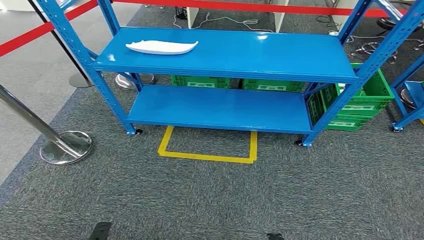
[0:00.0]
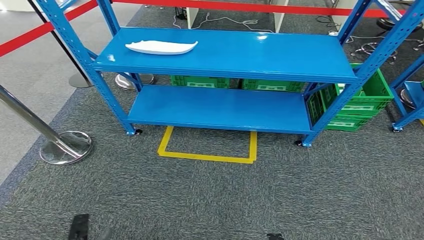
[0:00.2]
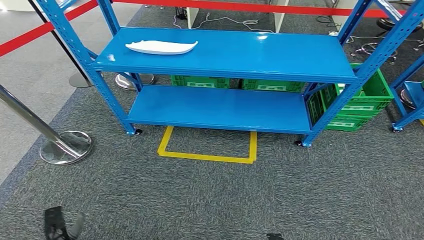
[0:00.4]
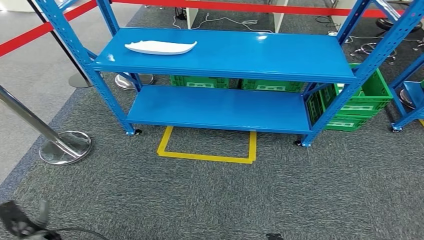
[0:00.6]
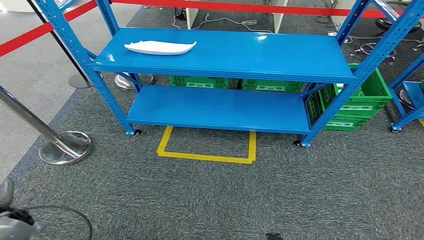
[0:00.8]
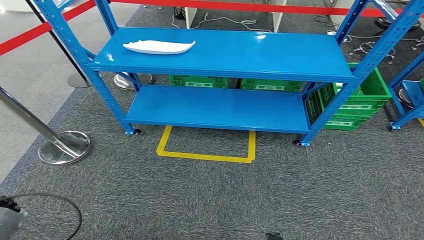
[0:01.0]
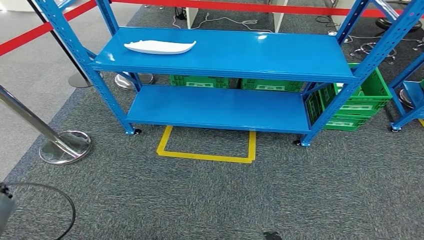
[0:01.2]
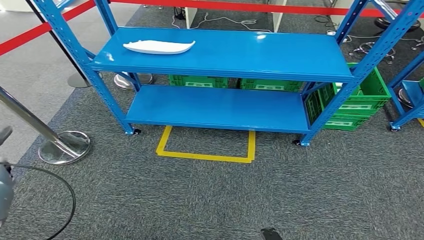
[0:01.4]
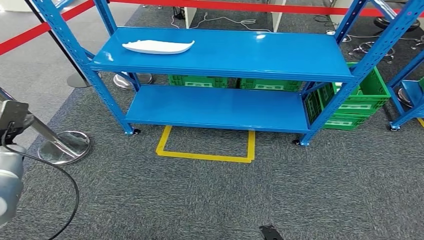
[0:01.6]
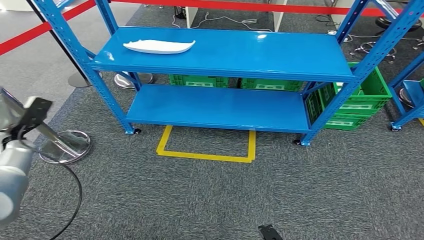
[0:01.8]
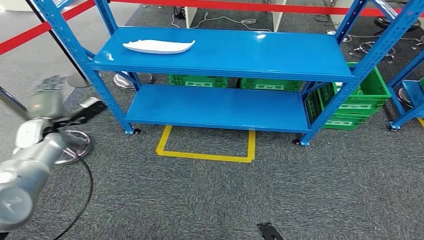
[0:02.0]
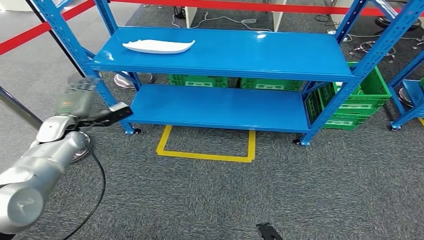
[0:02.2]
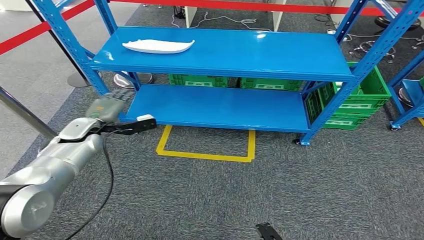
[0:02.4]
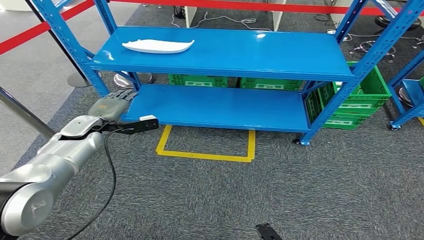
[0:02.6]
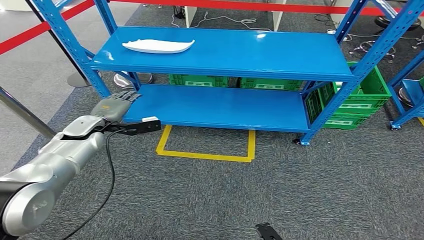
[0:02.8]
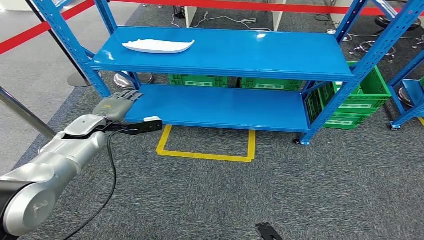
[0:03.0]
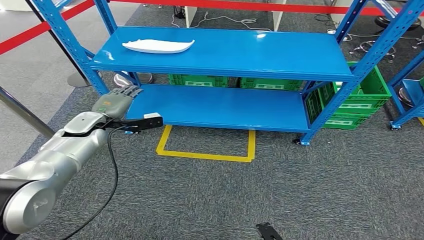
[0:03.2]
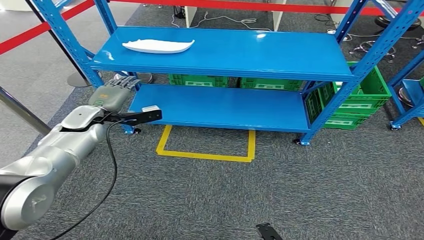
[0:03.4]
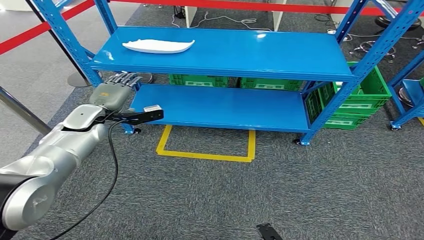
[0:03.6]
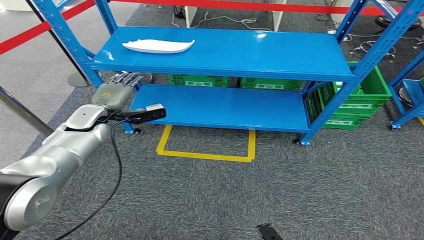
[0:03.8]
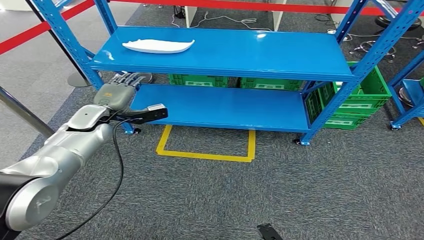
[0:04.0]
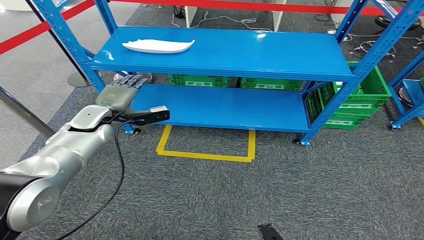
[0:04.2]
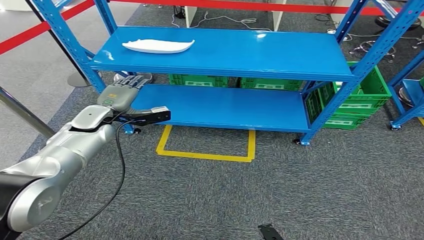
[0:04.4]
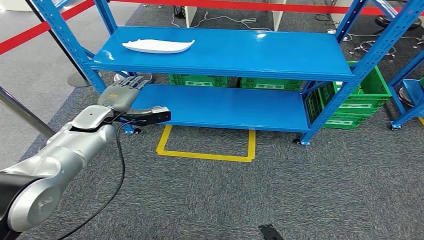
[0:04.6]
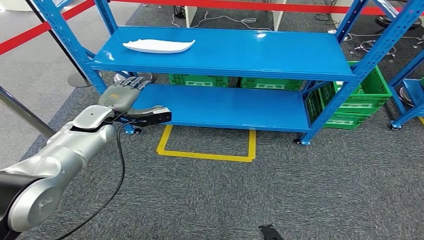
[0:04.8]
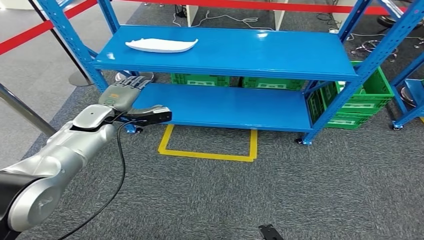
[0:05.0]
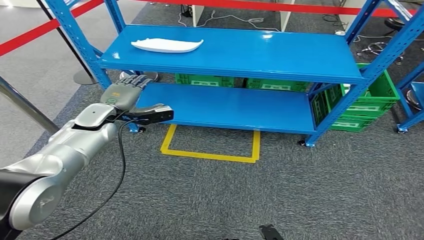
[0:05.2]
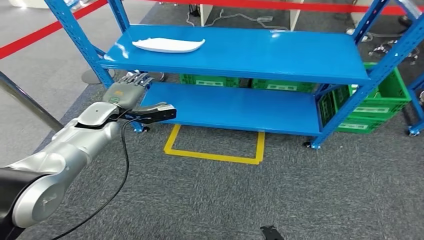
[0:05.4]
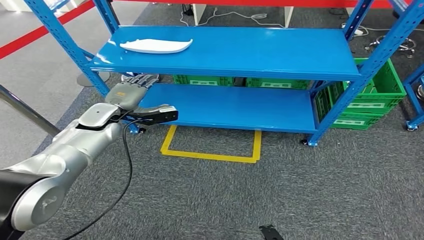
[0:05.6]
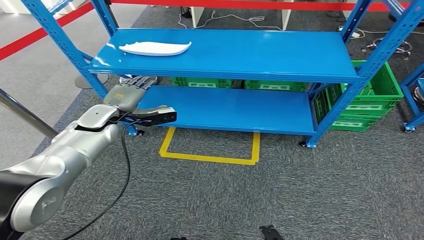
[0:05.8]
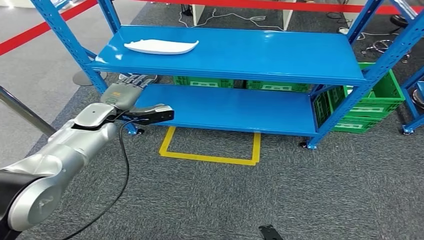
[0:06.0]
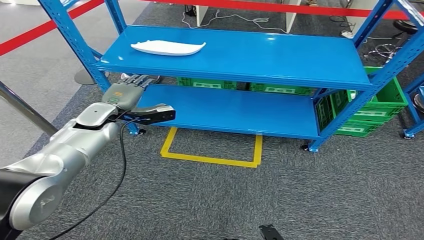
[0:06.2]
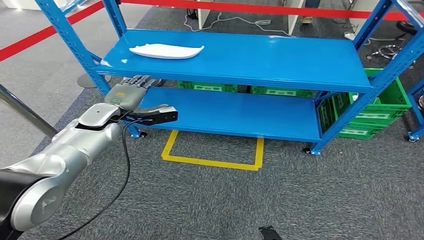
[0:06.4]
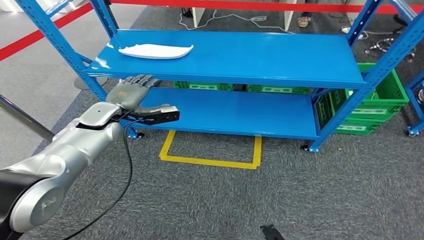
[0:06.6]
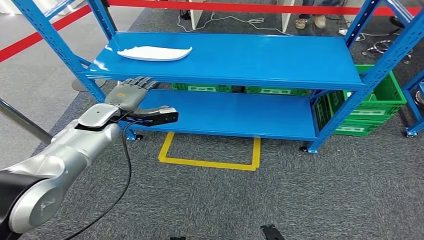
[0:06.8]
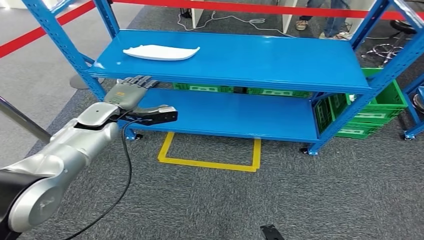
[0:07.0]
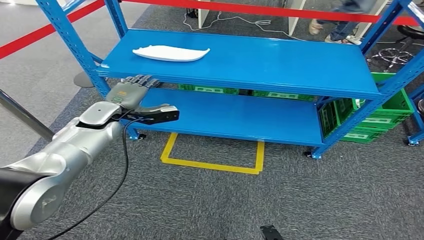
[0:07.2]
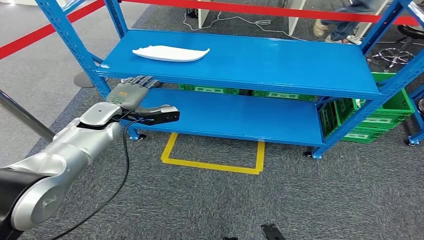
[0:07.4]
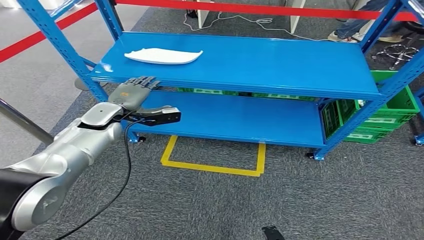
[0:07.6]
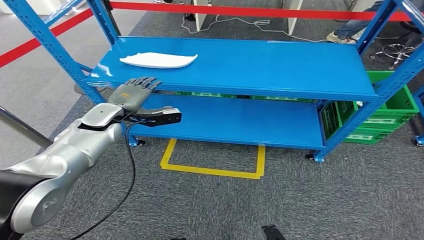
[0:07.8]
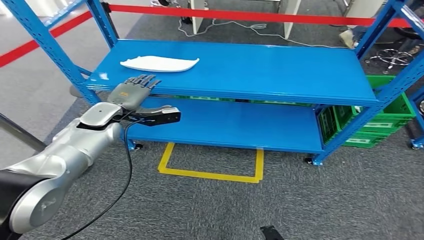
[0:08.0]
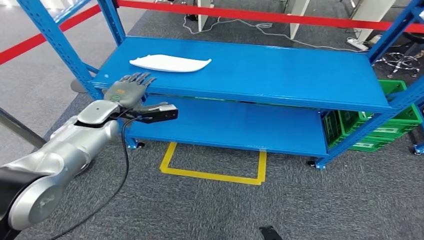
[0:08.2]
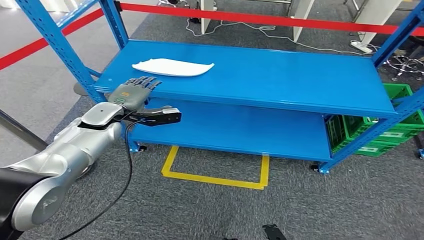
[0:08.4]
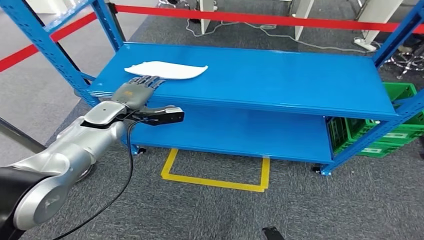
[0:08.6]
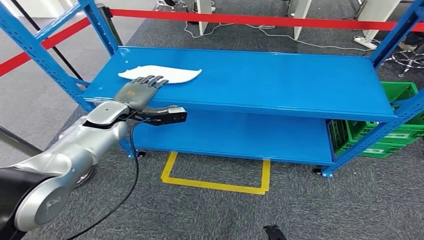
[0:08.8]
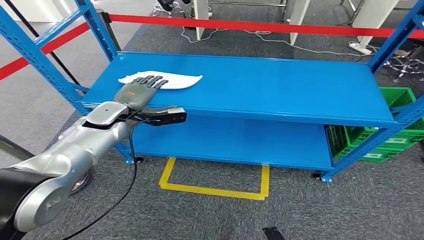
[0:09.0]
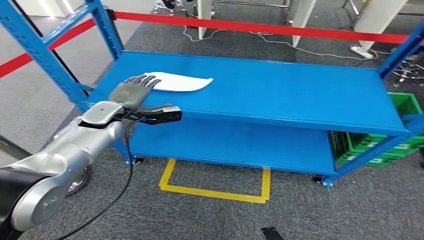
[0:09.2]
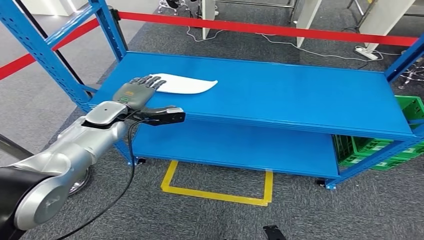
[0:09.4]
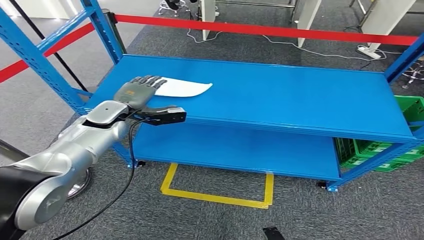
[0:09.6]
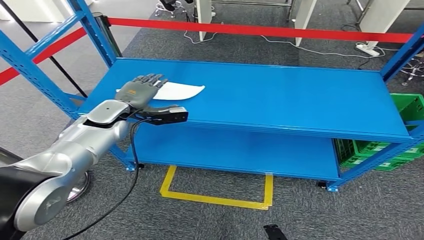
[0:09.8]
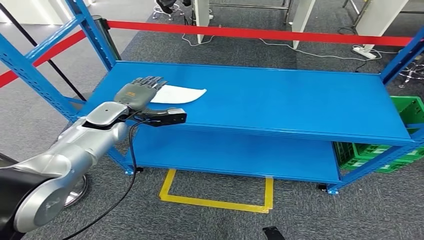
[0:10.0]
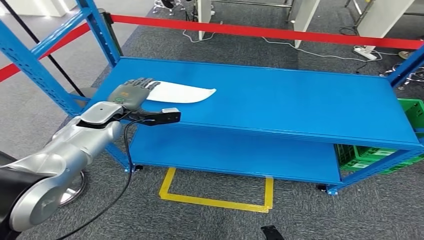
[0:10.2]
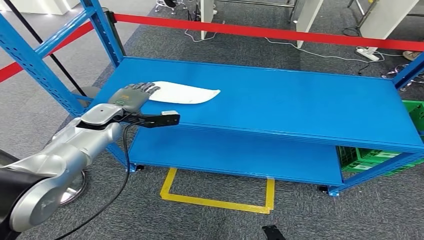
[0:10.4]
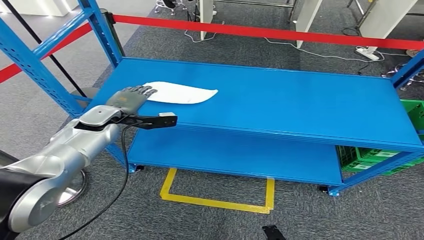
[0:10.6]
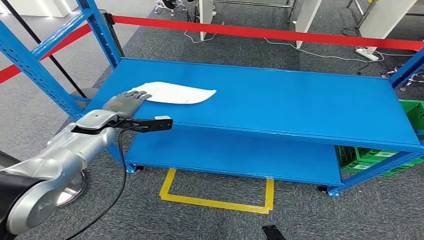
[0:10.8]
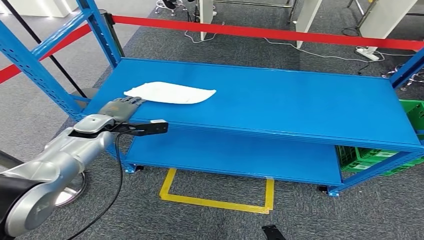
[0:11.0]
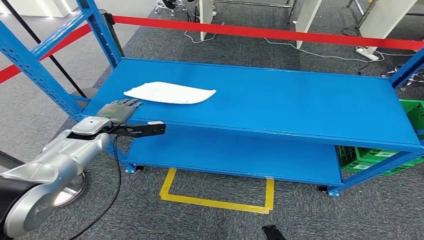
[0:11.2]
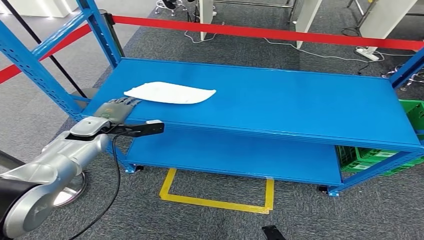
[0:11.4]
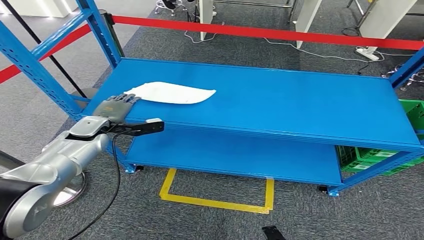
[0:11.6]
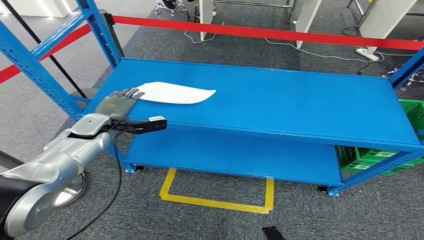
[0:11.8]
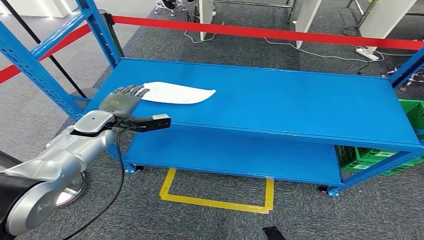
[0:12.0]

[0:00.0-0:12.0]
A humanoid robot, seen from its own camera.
0:01.6 to 0:03.0: The left hand goes approximately 20 cm to the right.
0:03.0 to 0:04.4: The hands make only small movements.
0:04.4 to 0:06.0: Both hands stay put.
0:10.4 to 0:12.0: There are only small adjustments of the hands.

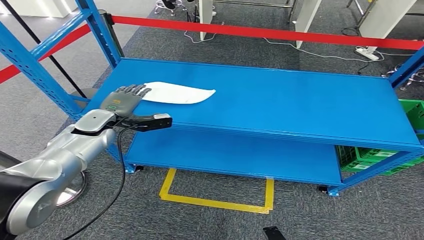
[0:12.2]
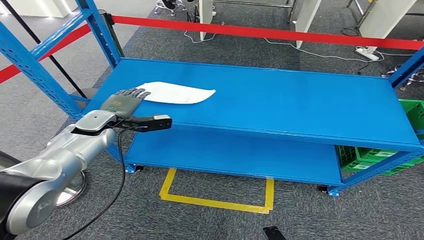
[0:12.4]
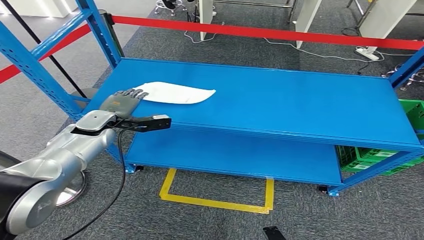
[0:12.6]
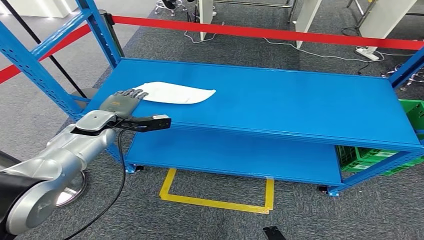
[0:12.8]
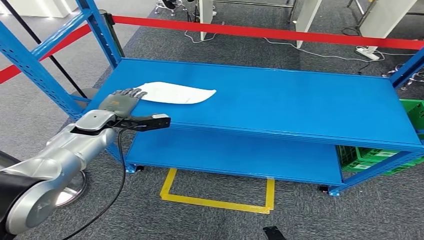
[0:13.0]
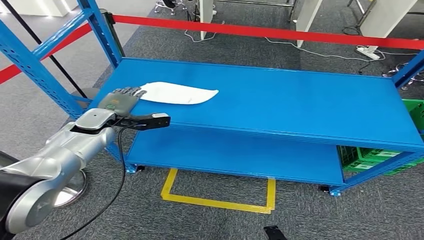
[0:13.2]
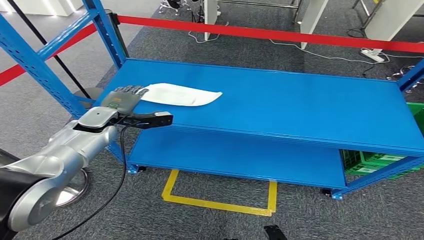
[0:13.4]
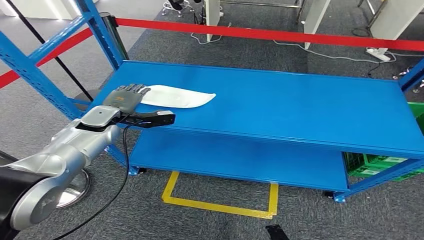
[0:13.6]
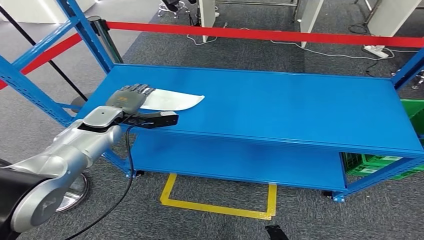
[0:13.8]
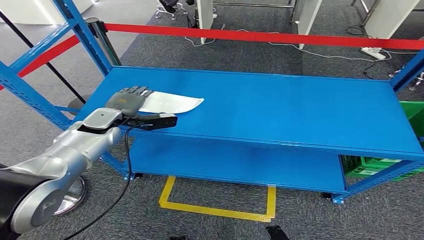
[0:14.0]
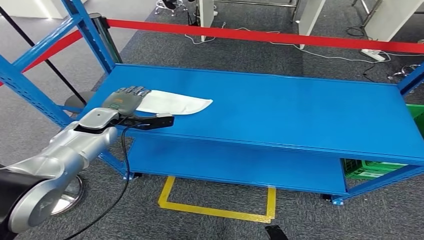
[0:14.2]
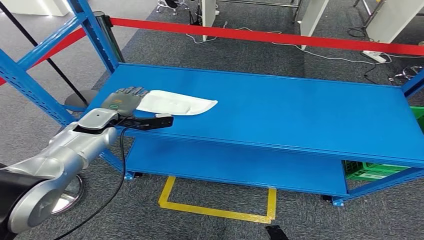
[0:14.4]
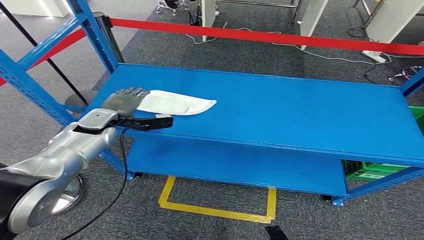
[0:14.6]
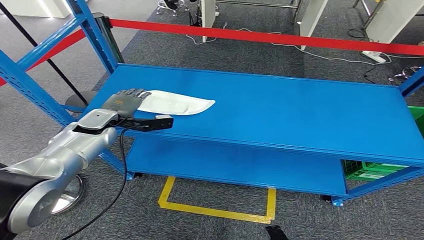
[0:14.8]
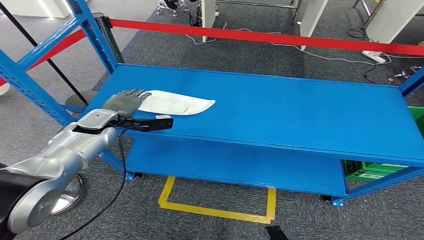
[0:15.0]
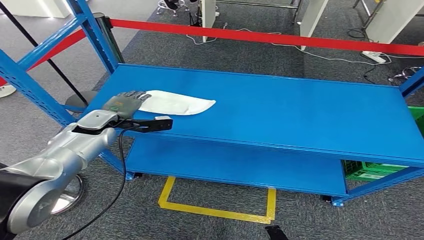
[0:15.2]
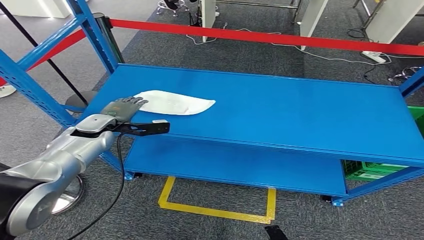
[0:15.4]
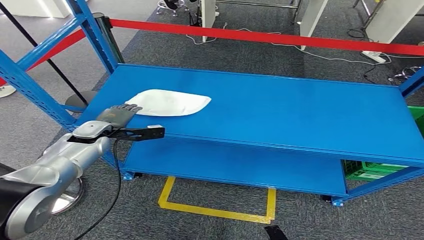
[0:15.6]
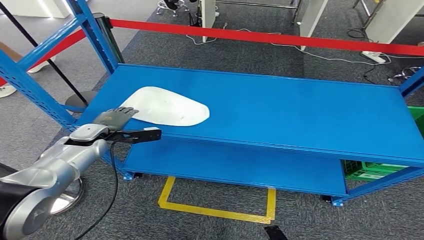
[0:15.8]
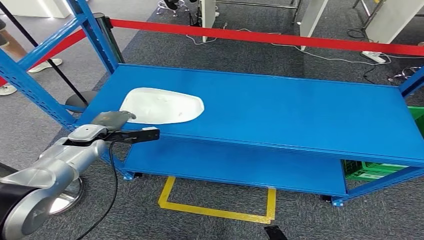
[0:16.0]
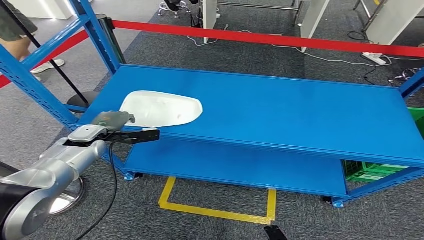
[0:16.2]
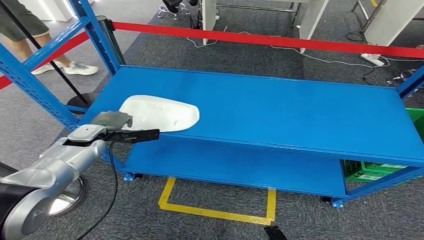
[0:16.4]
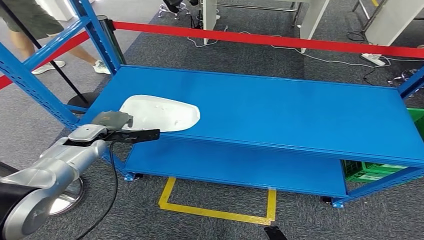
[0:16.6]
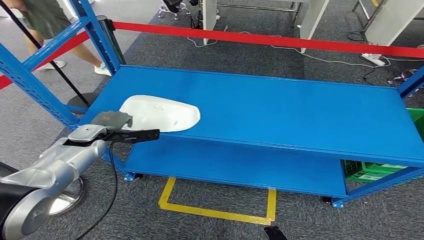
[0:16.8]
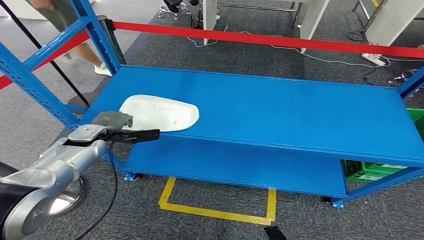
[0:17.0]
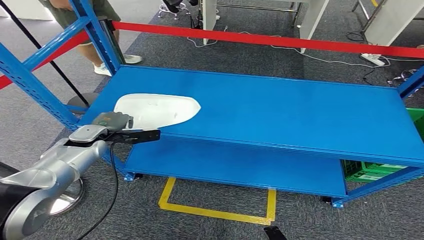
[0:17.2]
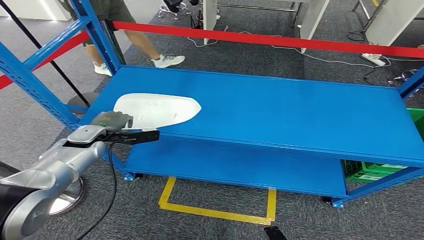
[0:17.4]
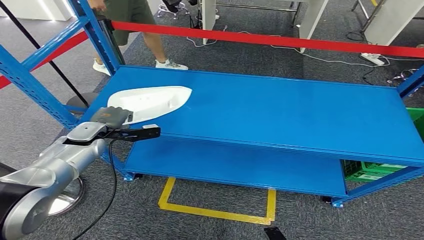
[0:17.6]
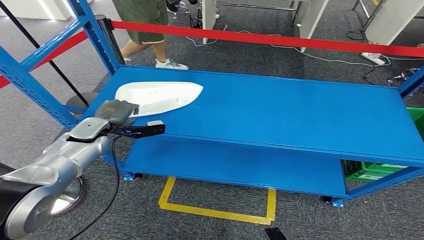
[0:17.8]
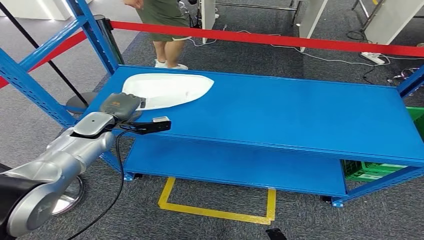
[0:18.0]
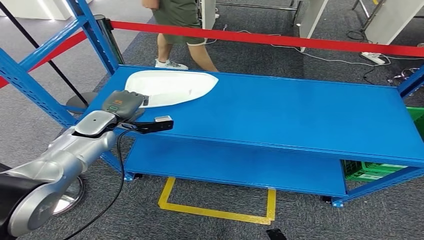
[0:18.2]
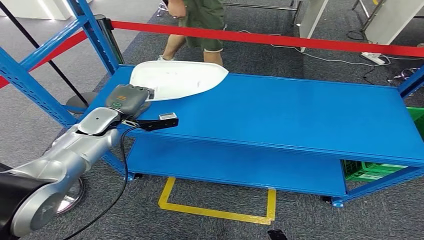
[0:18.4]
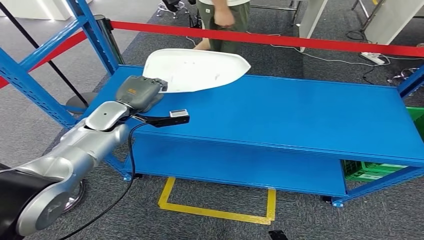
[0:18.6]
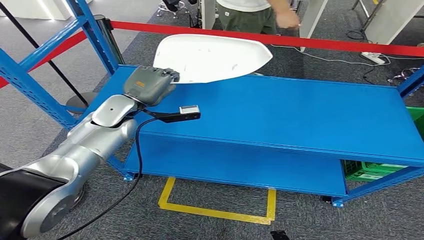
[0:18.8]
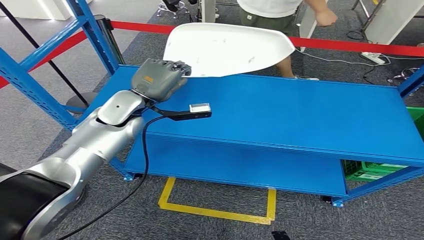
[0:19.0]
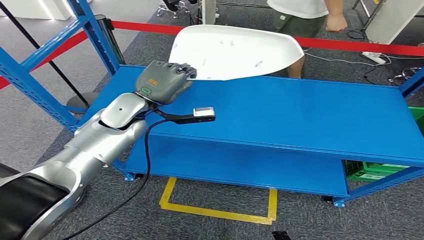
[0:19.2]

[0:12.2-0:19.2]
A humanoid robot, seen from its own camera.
Step, 0:12.2 to 0:18.6: Pick up the small component from the shelf.
0:15.0 to 0:16.4: The left hand ends up about 5 cm from where it was.
0:16.4 to 0:17.8: The hands move only a little.
